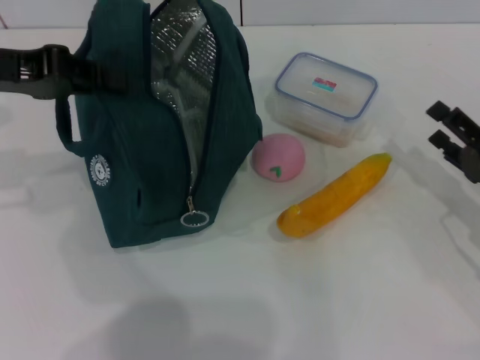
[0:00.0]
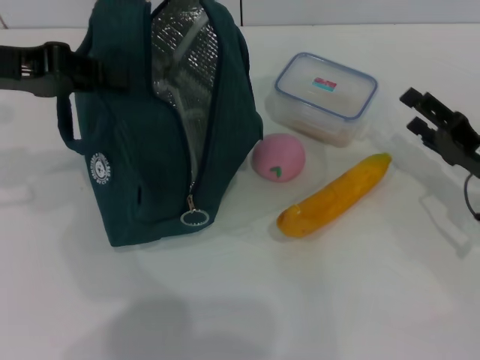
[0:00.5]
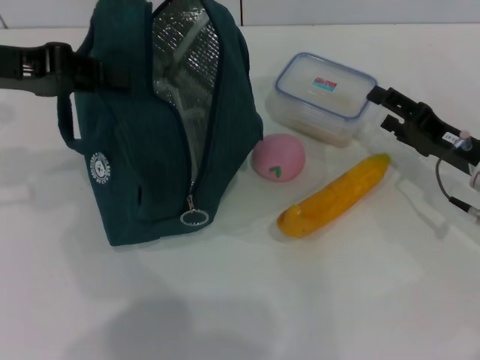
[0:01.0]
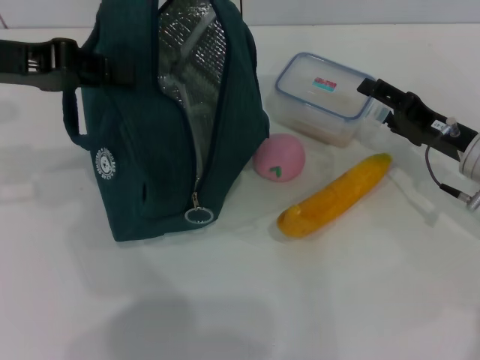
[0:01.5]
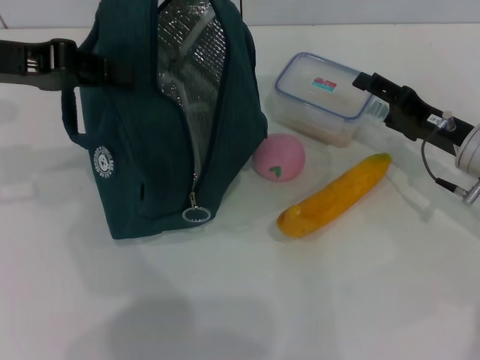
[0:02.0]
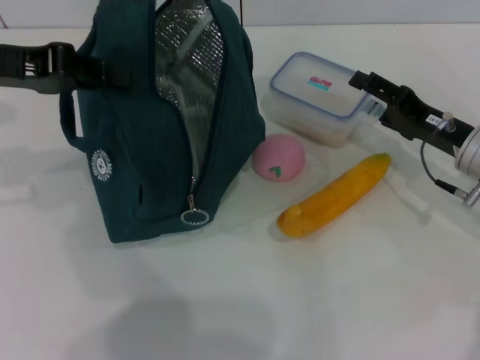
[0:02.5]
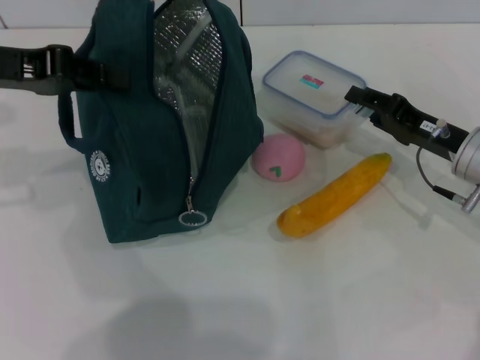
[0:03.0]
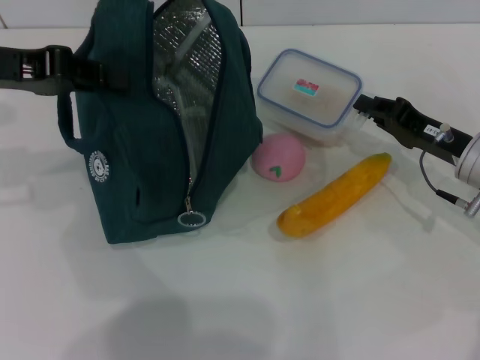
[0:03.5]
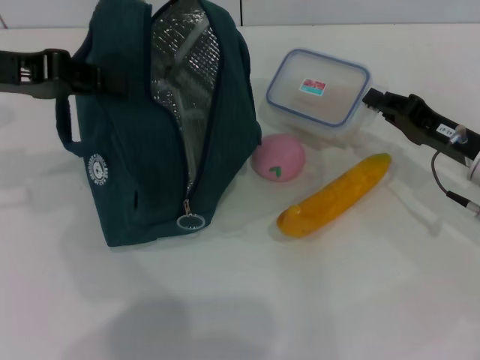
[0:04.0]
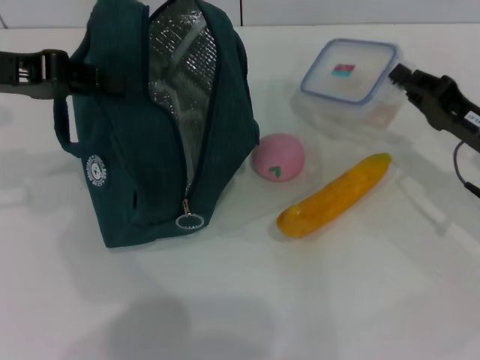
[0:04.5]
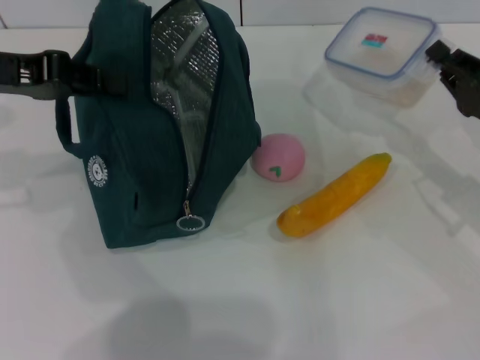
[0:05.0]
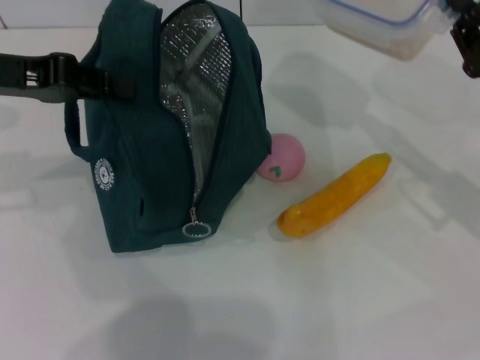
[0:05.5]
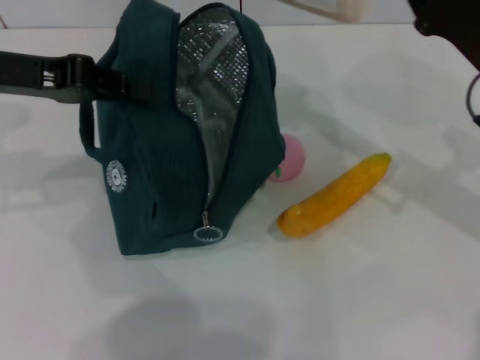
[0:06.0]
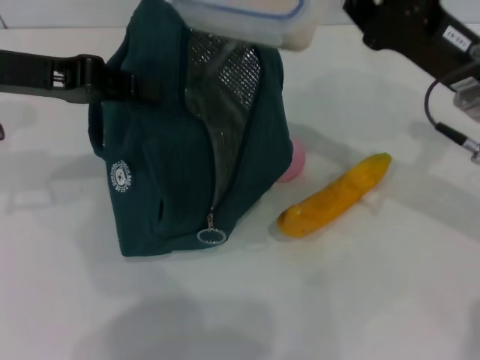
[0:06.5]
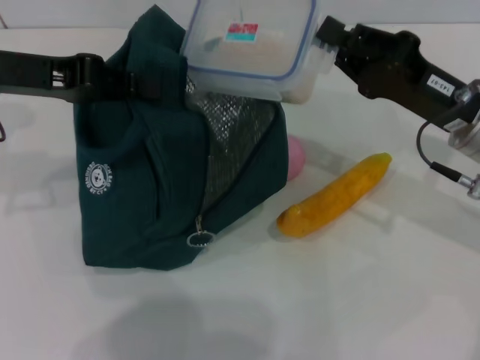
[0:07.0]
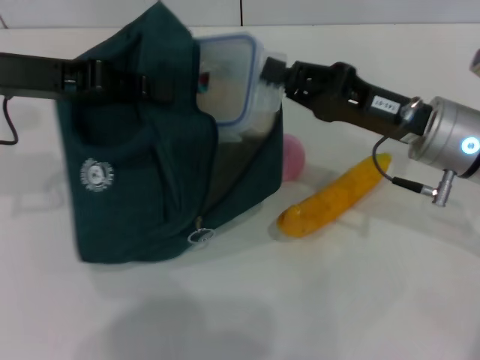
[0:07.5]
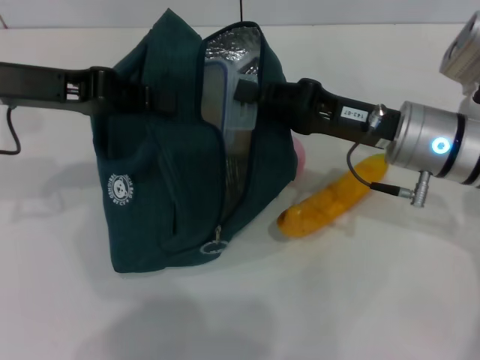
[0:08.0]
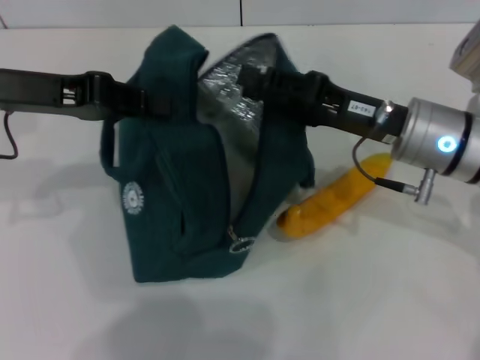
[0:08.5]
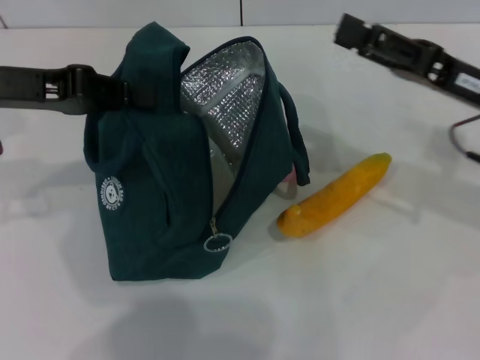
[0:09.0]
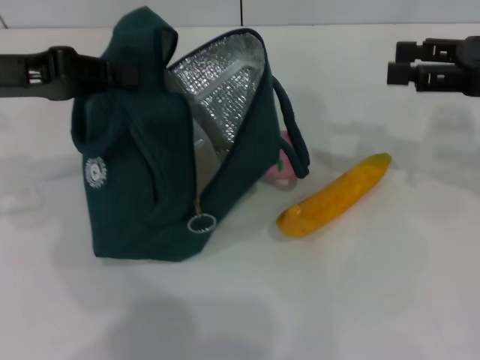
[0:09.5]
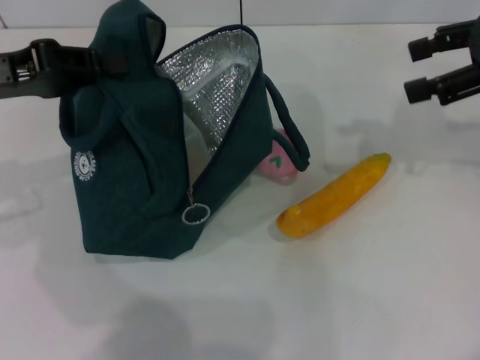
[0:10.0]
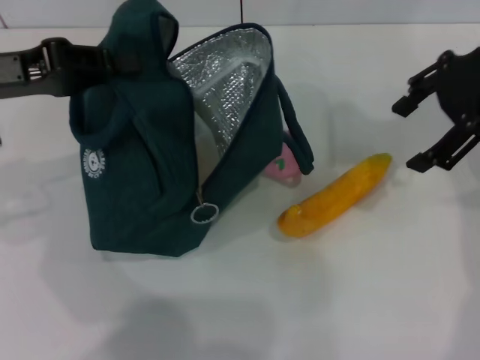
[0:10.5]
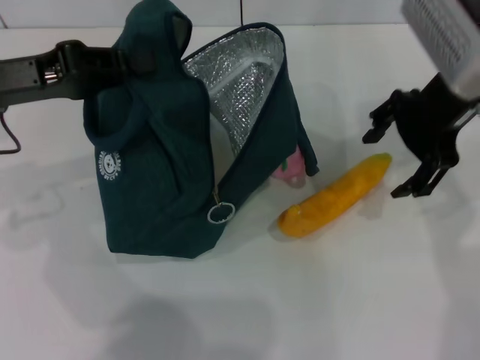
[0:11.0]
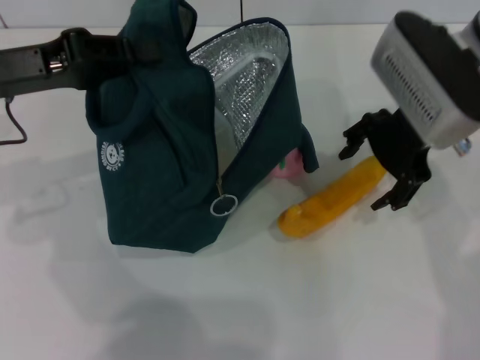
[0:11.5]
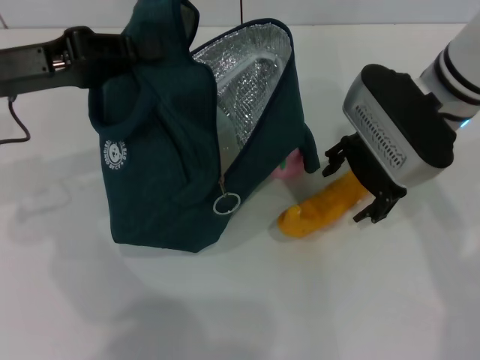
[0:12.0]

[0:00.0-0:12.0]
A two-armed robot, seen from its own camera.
Step, 0:00.0 to 0:03.0: Pick up the lunch box with your right hand.
Step, 0:03.5 to 0:08.5: Place the lunch box into the lunch bag with your right hand.
0:00.0 to 0:02.0: The right gripper goes roughly 10 cm forward and to the left.
0:02.0 to 0:04.0: The right gripper closes.
0:04.0 to 0:06.0: The right gripper is displaced upward by some 10 cm.
0:06.0 to 0:08.0: The right gripper shifts some 10 cm to the left.
0:08.0 to 0:10.0: The right gripper travels upward and to the right by about 20 cm, and opens up.
0:10.0 to 0:12.0: The right gripper goes some 20 cm to the left and downward.

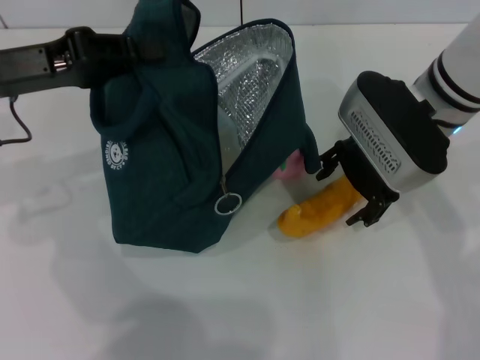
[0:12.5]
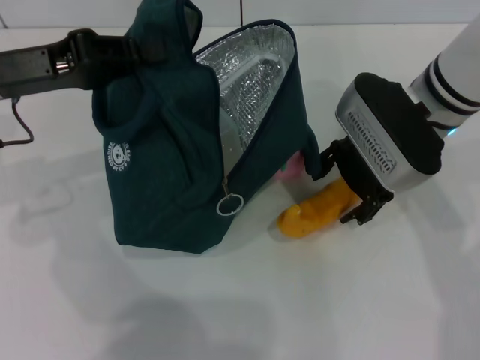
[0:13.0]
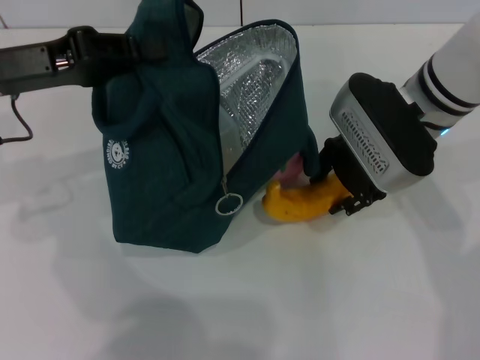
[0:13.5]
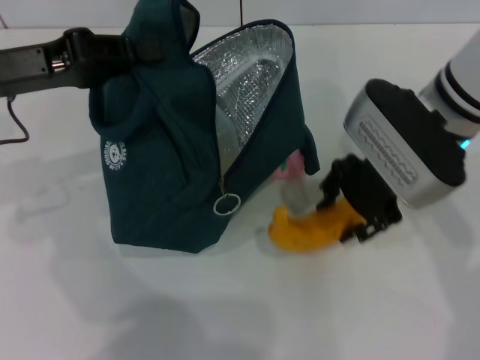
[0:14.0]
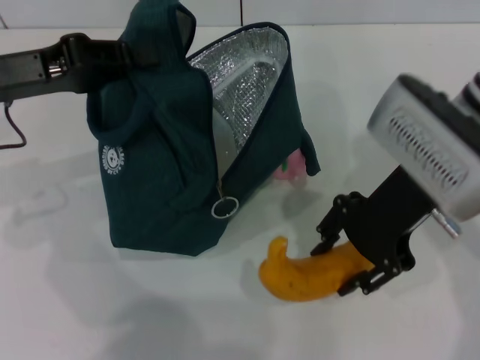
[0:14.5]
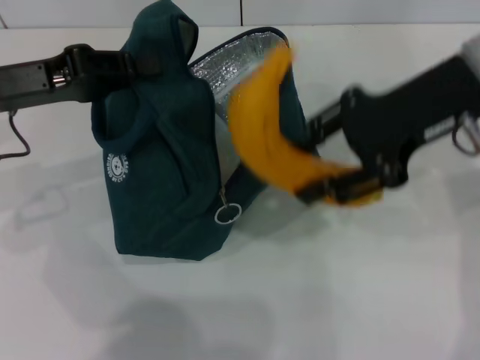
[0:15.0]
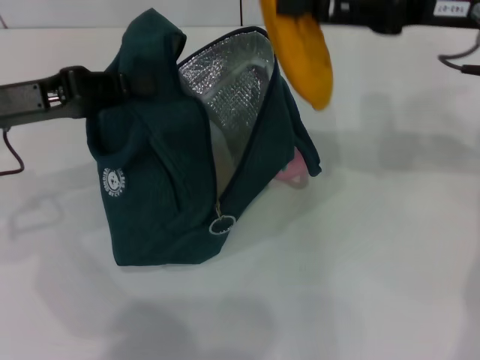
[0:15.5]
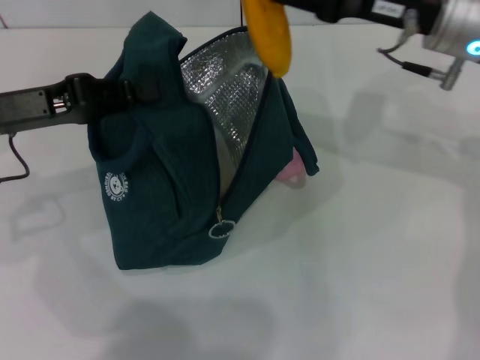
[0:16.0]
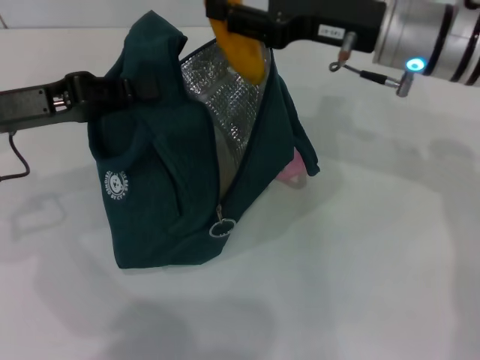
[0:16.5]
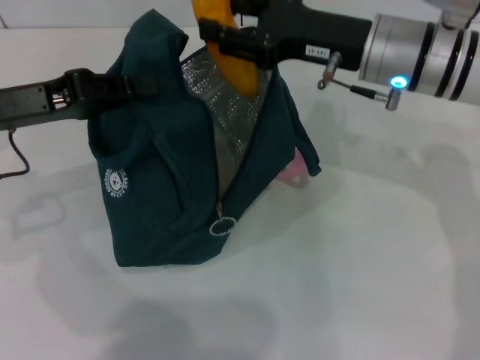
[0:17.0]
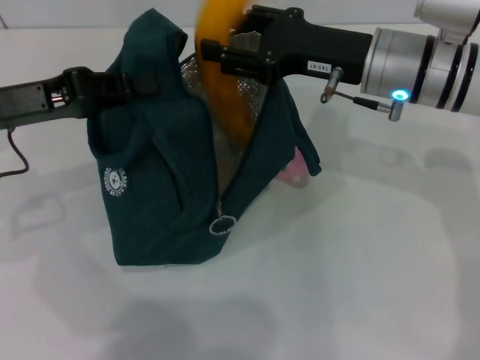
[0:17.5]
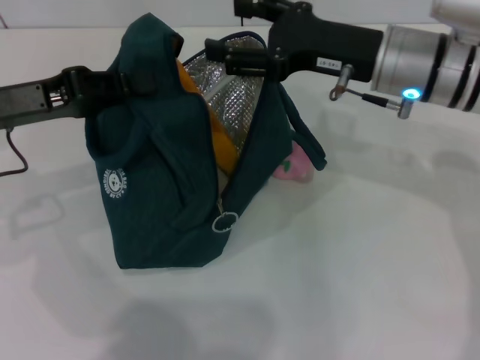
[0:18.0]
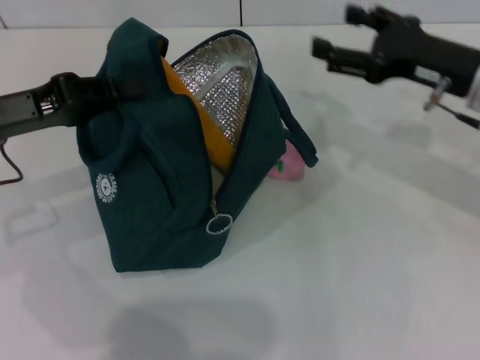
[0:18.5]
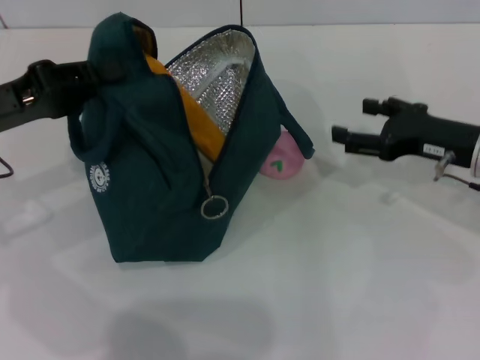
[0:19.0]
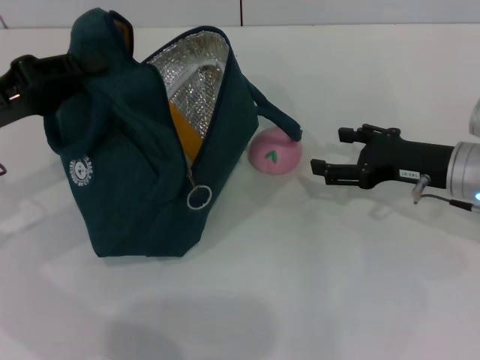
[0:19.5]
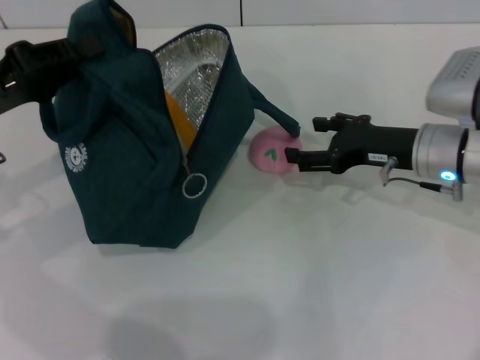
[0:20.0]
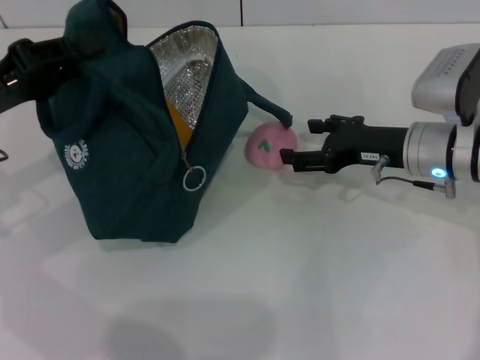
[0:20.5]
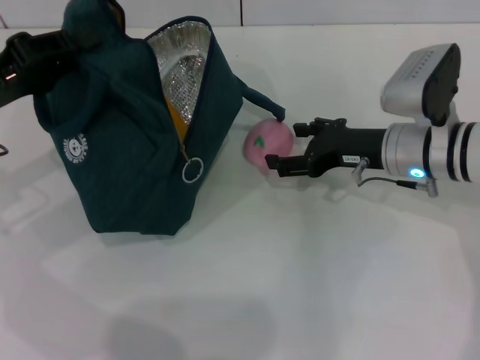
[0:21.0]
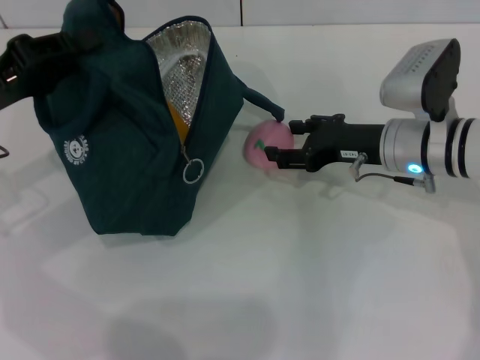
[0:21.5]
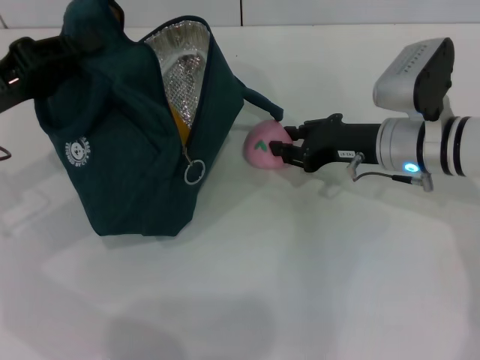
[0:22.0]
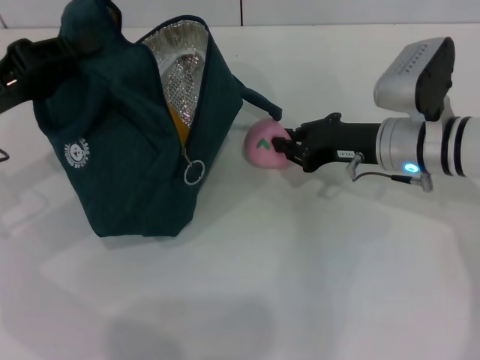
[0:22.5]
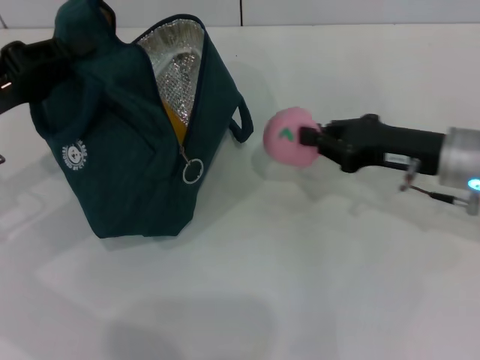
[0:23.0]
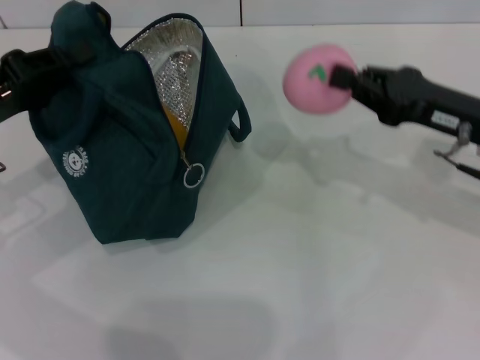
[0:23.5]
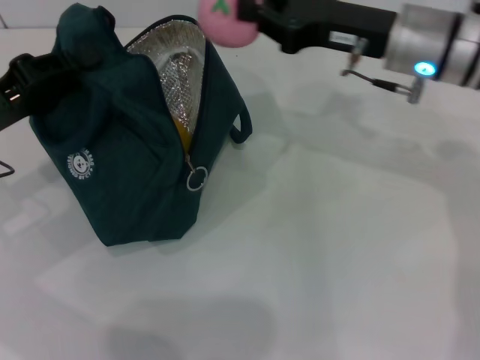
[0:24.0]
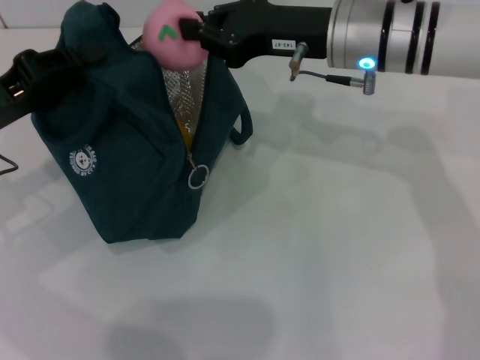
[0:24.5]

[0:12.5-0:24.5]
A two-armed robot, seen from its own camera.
Step, 0:13.5 to 0:17.5: Put the banana into the lunch bag with your right hand.
Step, 0:18.0 to 0:22.5: Grab the peach with your right hand.
0:12.5 to 0:14.5: The right gripper travels backward by roughly 5 cm, and closes.
0:14.5 to 0:16.5: The right gripper shifts approximately 5 cm forward.
0:16.5 to 0:18.5: The right gripper moves to the right, approximately 10 cm, and opens.
0:18.5 to 0:20.5: The right gripper is displaced downward by some 5 cm.
0:20.5 to 0:22.5: The right gripper closes up.
0:22.5 to 0:24.5: The right gripper moves upward and to the left, approximately 10 cm.

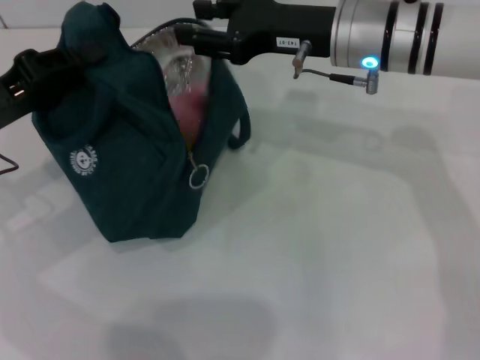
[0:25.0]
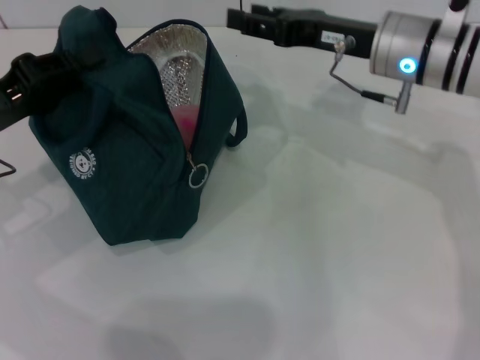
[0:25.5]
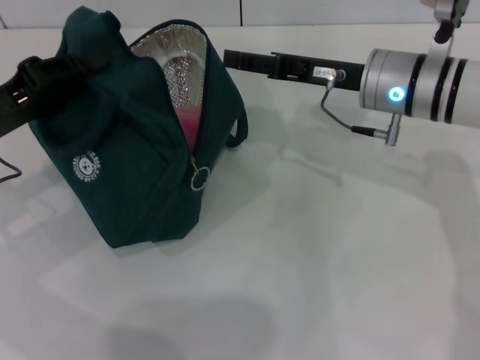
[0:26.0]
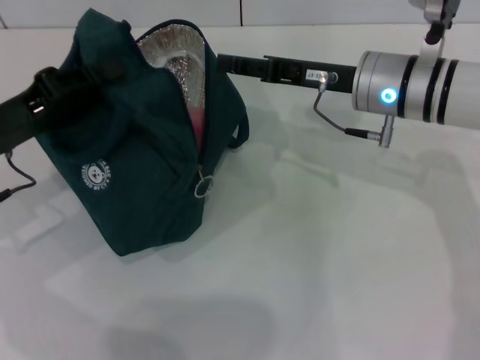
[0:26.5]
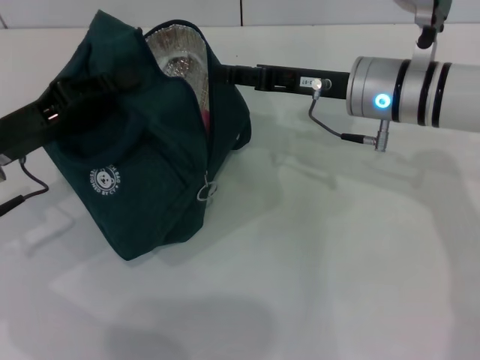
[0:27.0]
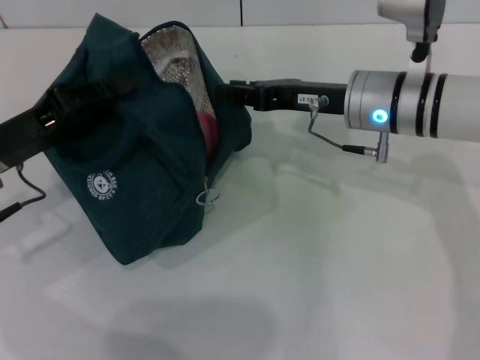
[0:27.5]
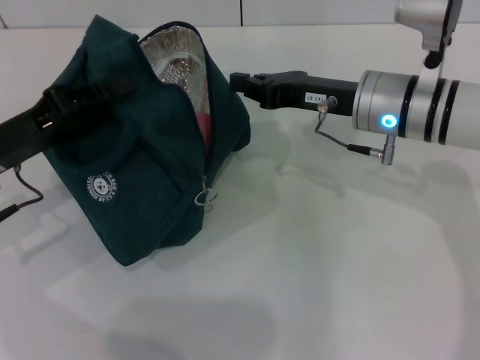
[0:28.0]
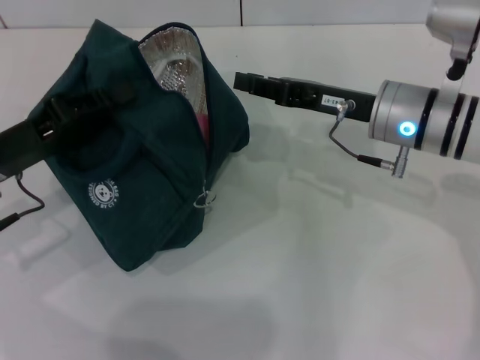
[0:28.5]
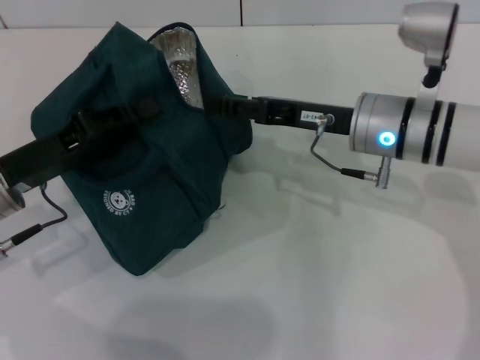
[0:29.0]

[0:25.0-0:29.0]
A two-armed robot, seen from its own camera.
0:25.0 to 0:27.0: The right gripper goes about 5 cm downward.
0:27.0 to 0:29.0: The right gripper closes, then reopens.
